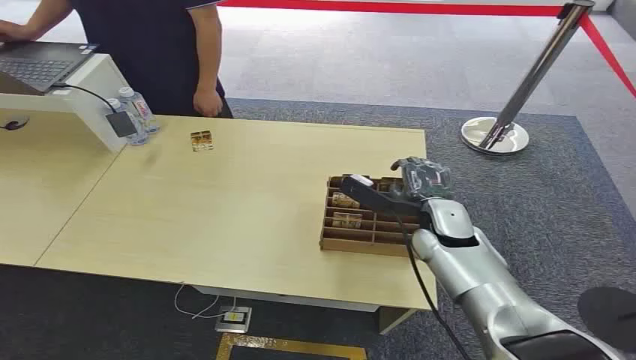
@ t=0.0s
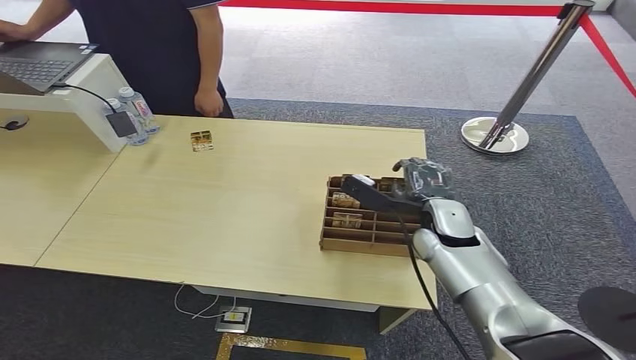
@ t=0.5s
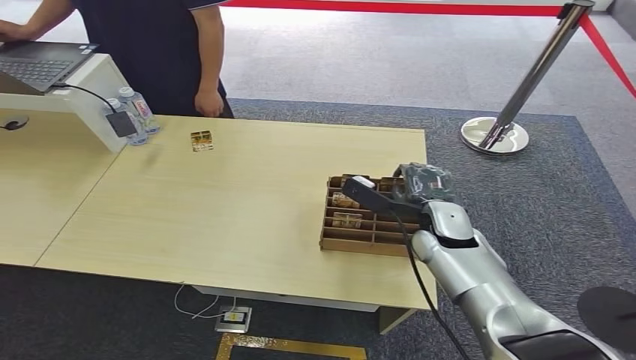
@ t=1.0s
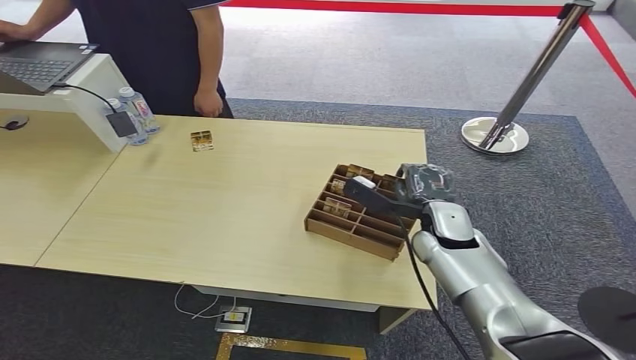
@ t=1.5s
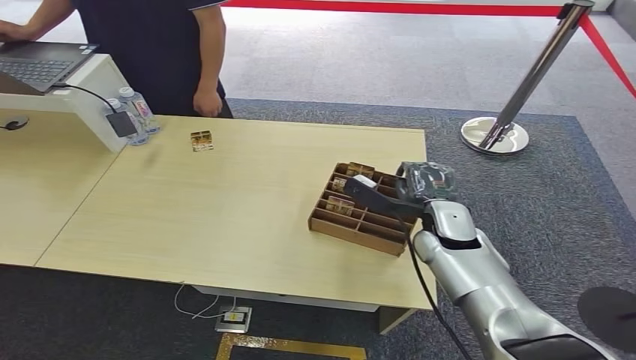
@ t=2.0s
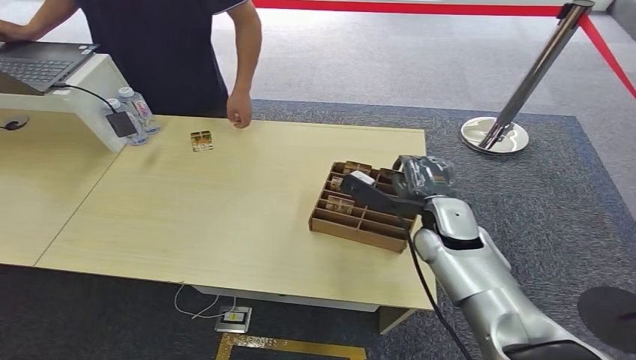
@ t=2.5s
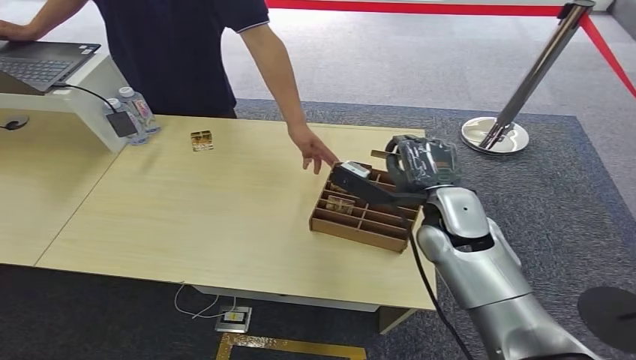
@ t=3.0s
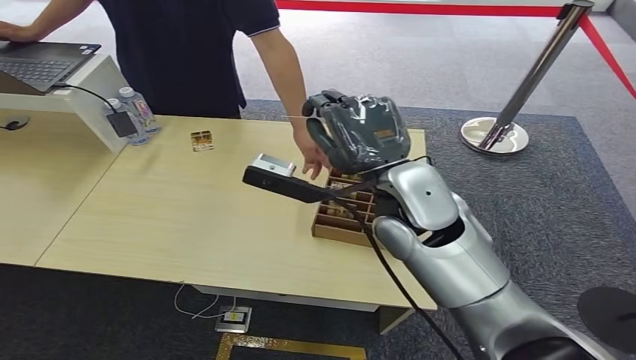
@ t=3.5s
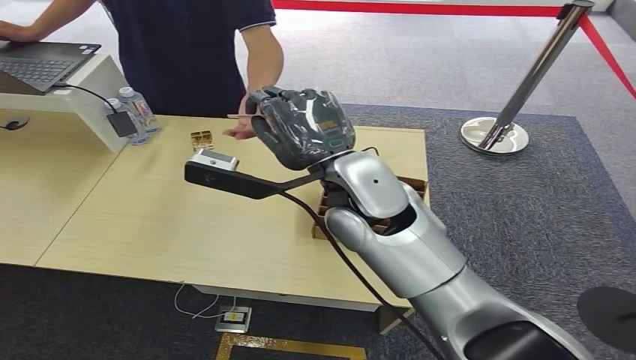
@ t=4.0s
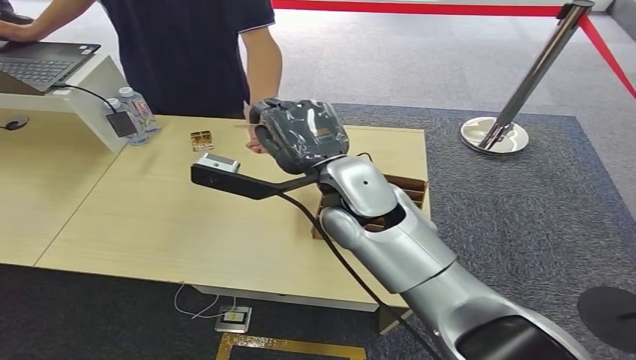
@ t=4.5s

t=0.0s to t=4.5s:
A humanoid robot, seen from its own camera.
Step, t=0.0s to t=3.0s: Pick up the room card from the card holder.
Step, t=3.5s to t=4.5s: Hand the room card to the target.
